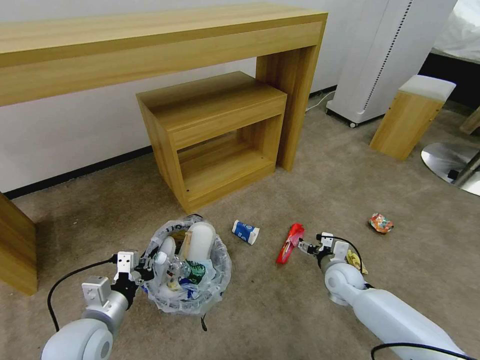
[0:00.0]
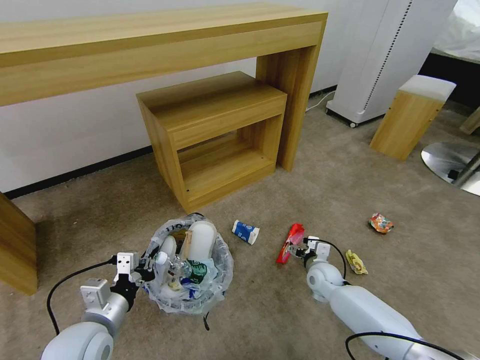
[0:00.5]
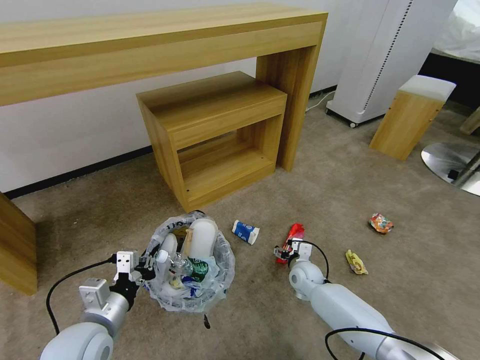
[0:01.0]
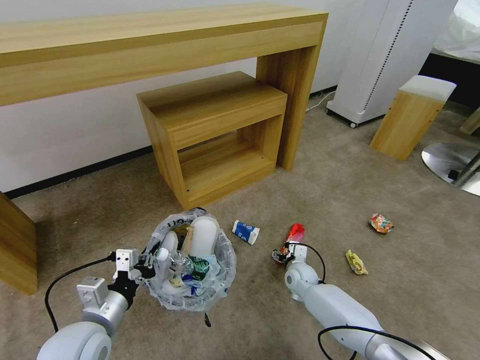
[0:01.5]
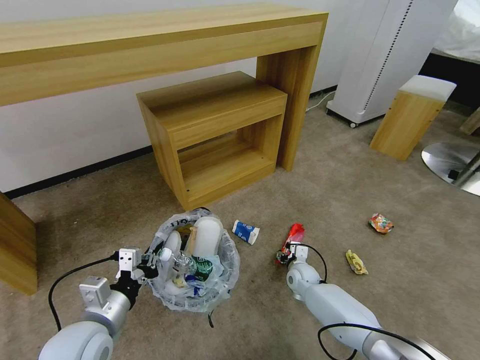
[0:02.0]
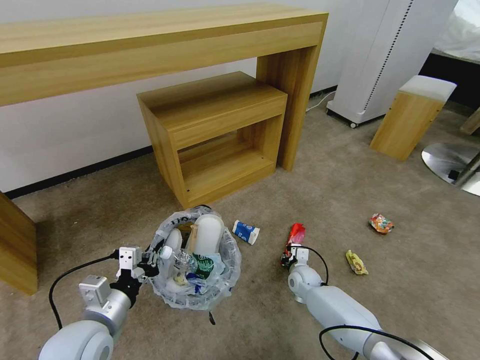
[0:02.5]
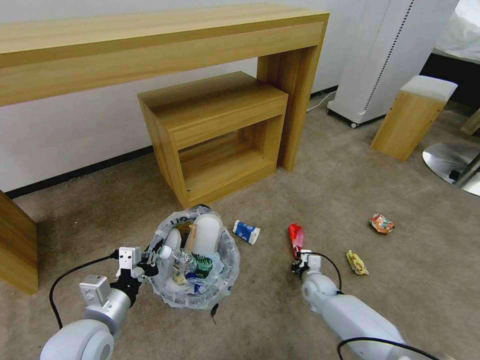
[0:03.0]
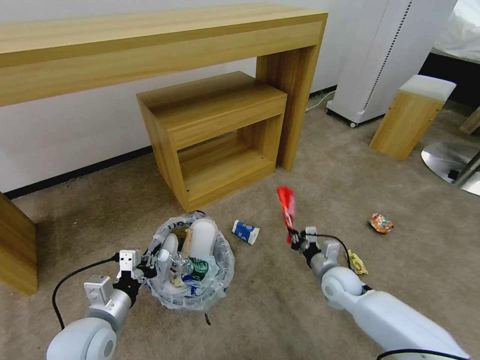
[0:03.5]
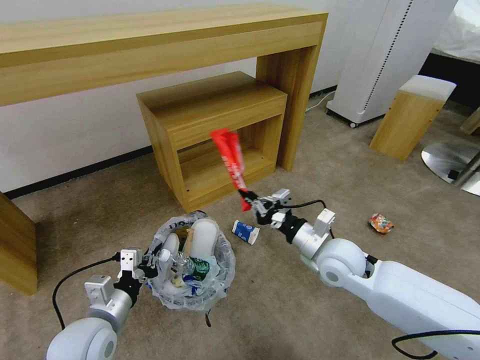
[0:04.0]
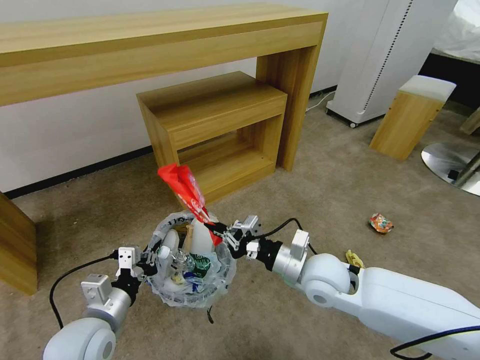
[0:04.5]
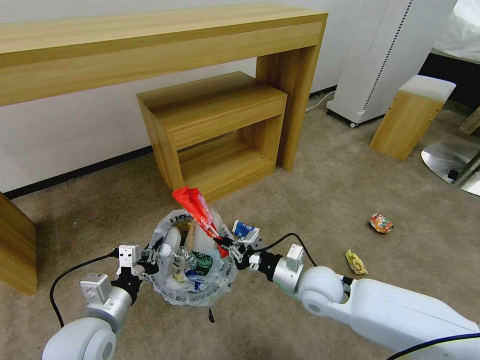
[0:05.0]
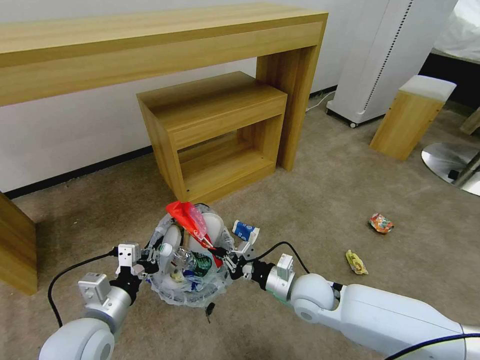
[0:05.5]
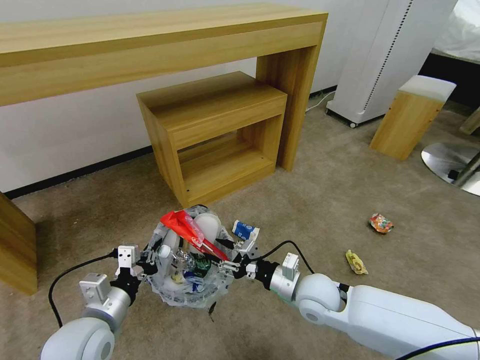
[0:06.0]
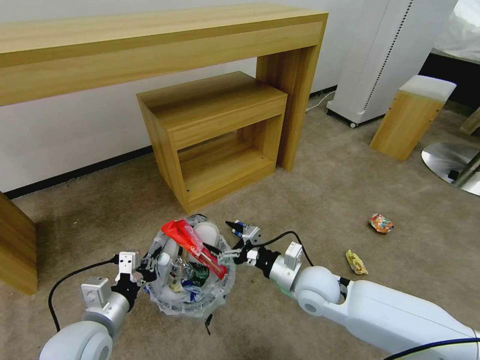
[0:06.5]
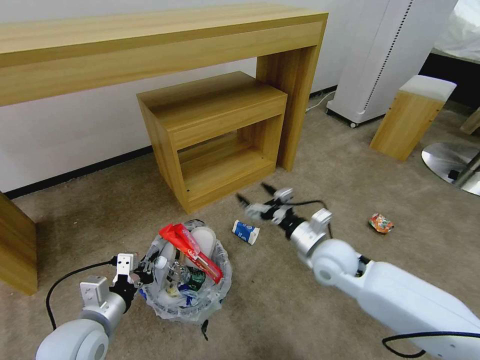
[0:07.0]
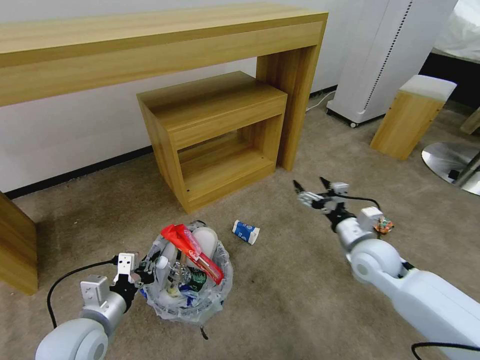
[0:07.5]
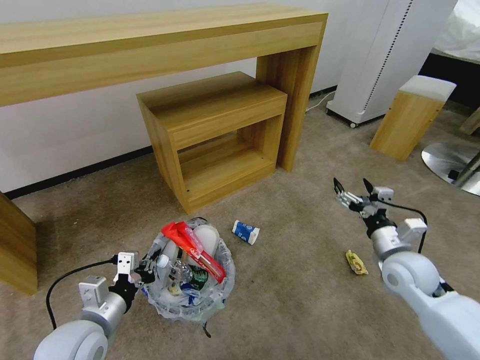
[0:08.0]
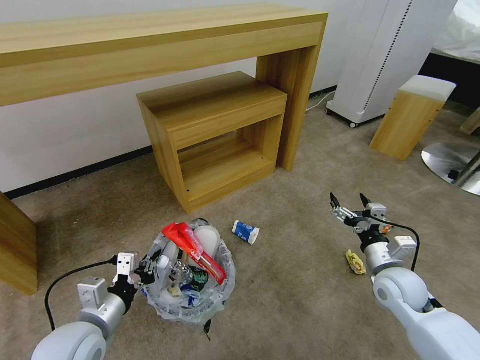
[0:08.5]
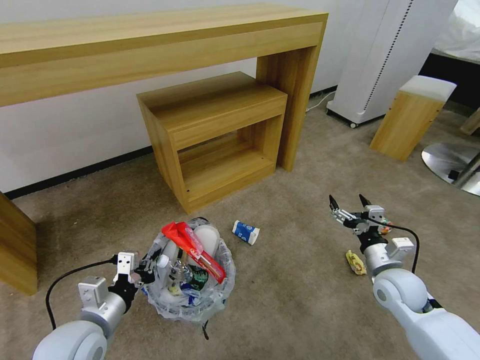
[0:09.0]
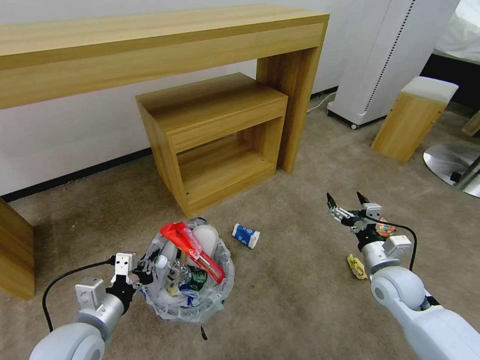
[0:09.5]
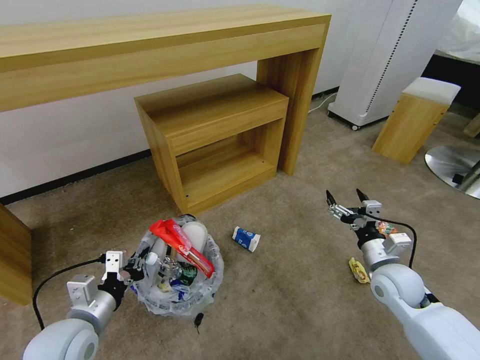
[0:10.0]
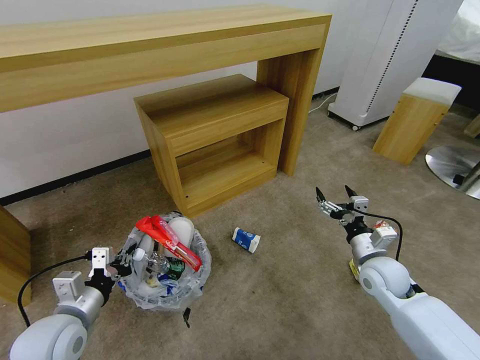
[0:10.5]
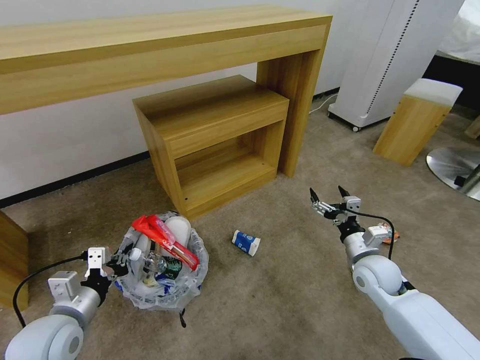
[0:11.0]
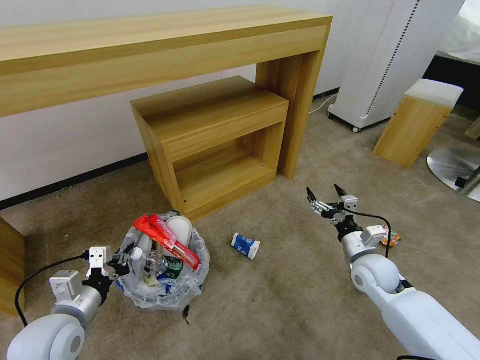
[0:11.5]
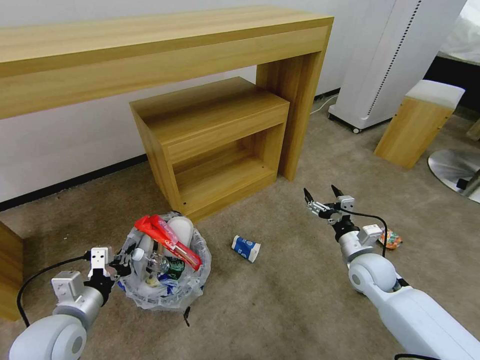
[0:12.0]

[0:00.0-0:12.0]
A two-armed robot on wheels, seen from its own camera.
Task of the whole recording: Pick up the trash bin and place the garbage on the floor into it.
0:00.0 to 0:02.0: The right gripper moves downward and to the left, approximately 10 cm.
0:02.0 to 0:04.0: The right gripper heads upward, covering about 25 cm, and closes up.
0:04.0 to 0:06.0: The right gripper shifts some 10 cm downward, and opens.
0:06.0 to 0:08.0: The right gripper goes about 20 cm to the right, and opens up.
0:08.0 to 0:10.0: The grippers stay close to where they were, moving slightly.
0:10.0 to 0:12.0: The right gripper moves approximately 5 cm.

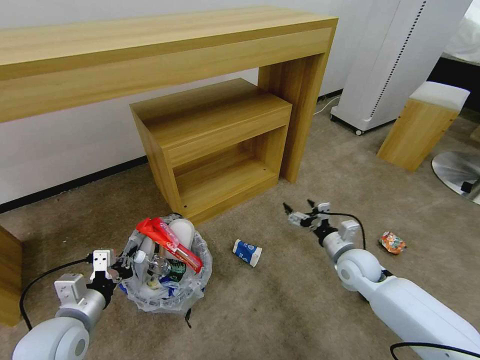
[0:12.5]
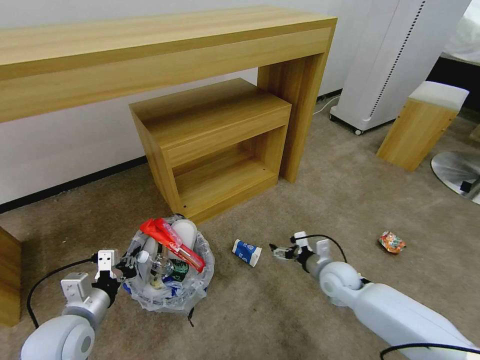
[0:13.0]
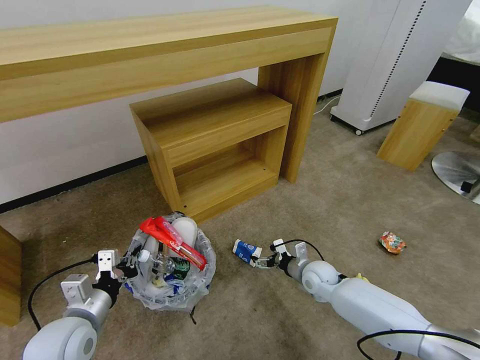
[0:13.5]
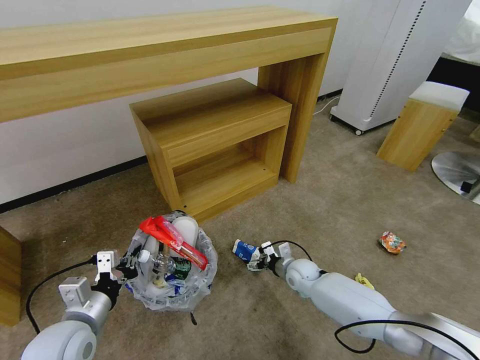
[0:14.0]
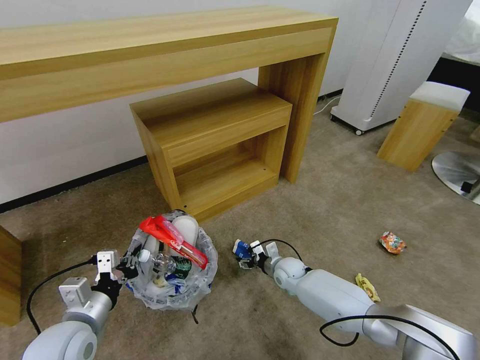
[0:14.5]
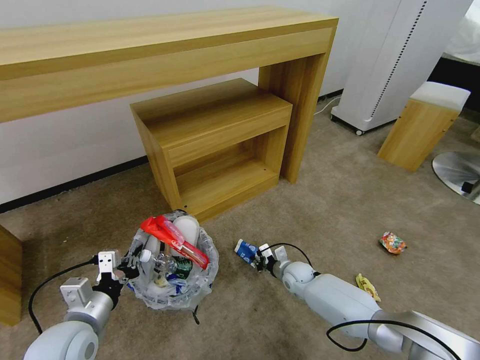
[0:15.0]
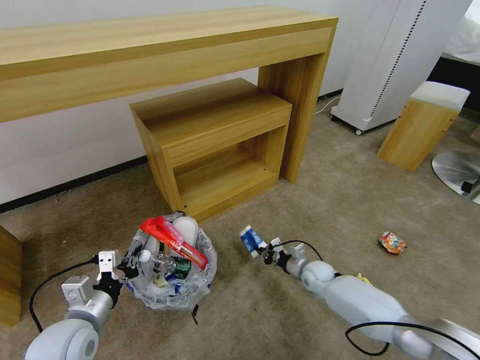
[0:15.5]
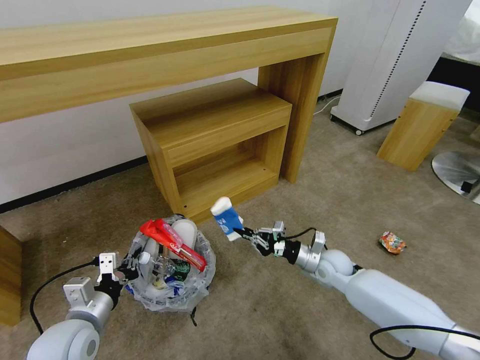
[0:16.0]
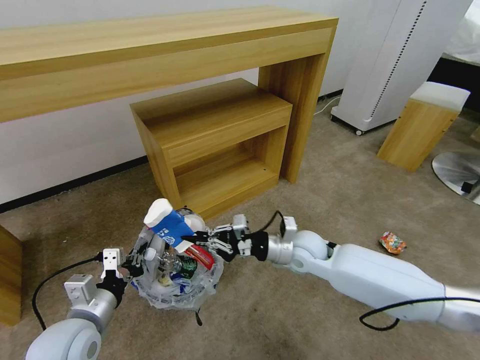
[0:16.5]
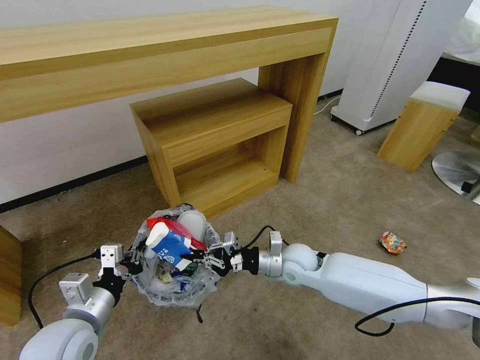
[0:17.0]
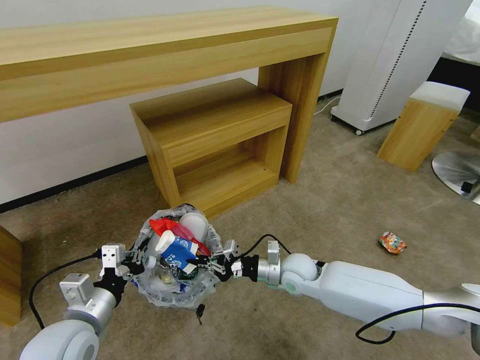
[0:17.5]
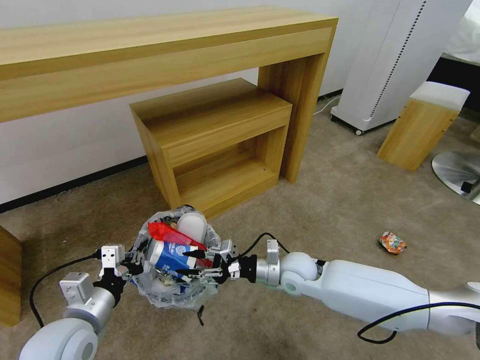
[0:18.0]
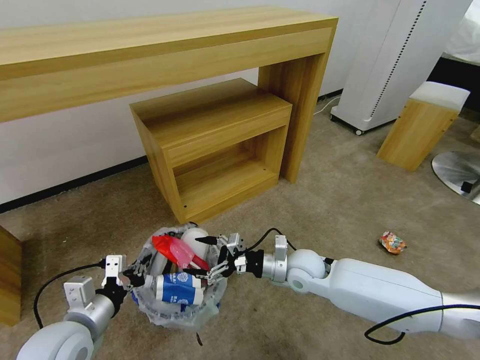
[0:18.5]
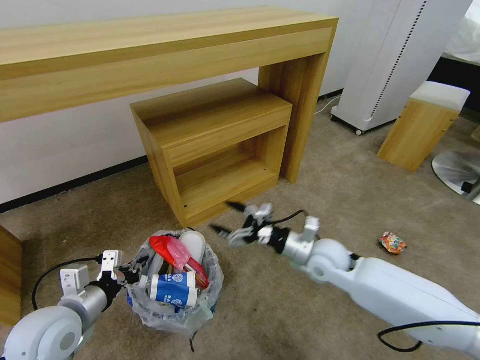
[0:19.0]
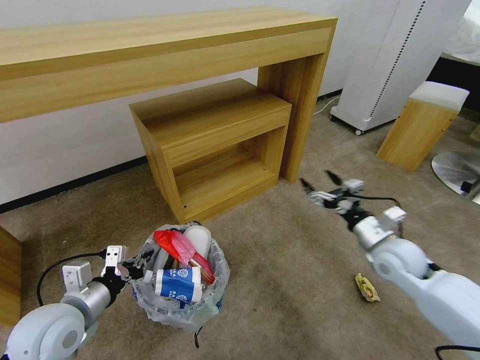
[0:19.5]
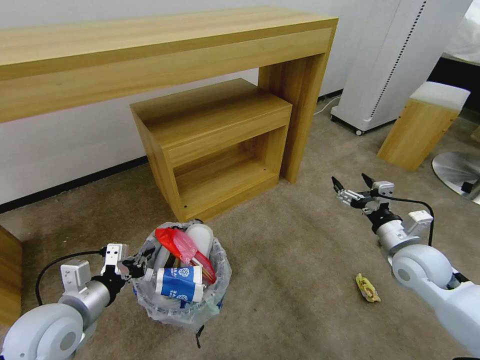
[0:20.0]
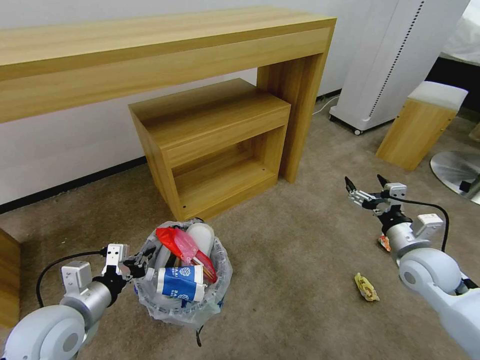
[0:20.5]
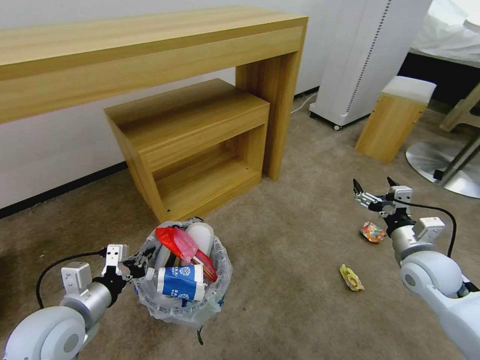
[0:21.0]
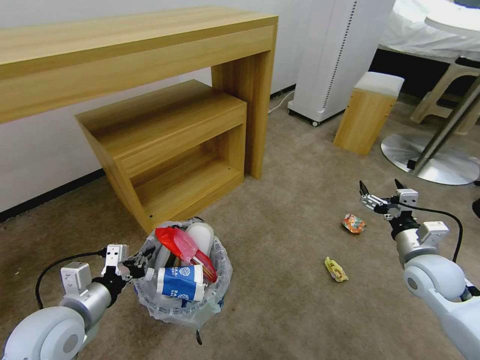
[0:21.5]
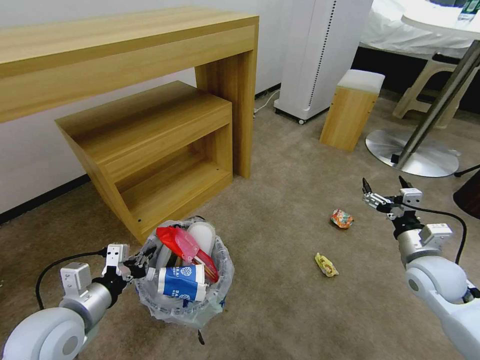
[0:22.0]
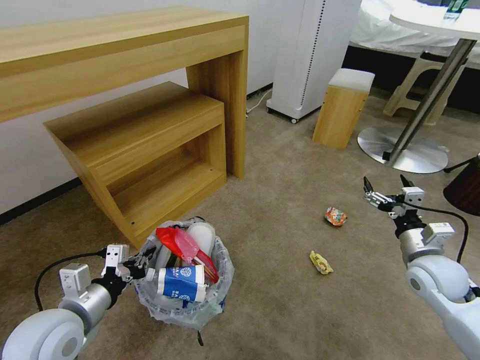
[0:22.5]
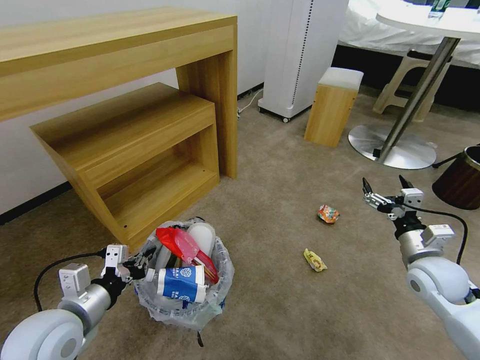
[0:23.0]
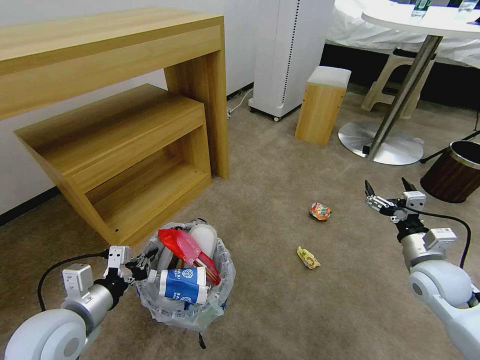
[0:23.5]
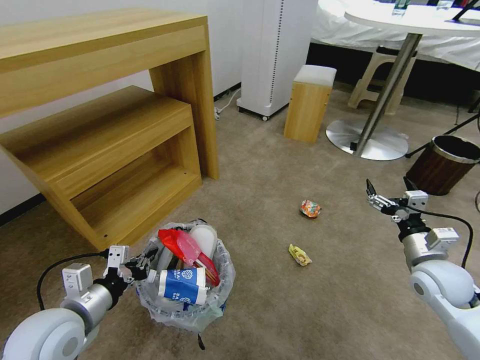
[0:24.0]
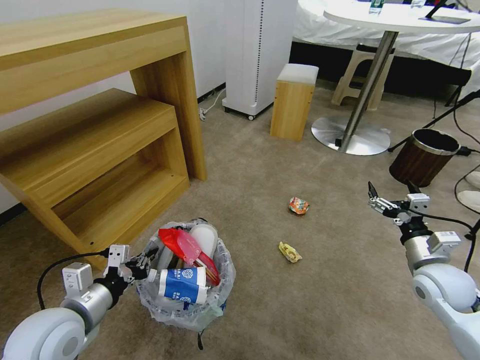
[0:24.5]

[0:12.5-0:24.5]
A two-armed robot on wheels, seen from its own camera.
Task of the whole recording: Pick up the trash bin and place the garbage on the floor into it.
0:12.5 to 0:14.5: The right gripper moves to the left and downward, some 20 cm.
0:14.5 to 0:16.5: The right gripper is displaced upward by some 20 cm, and closes up.
0:16.5 to 0:18.5: The right gripper opens.
0:18.5 to 0:20.5: The right gripper goes some 25 cm to the right.

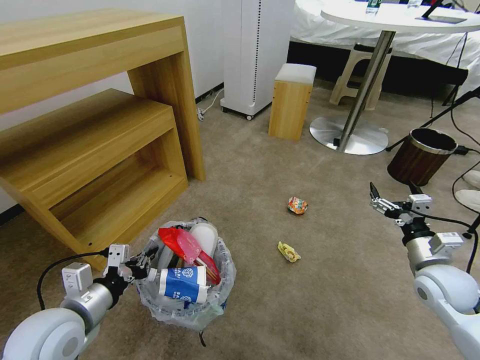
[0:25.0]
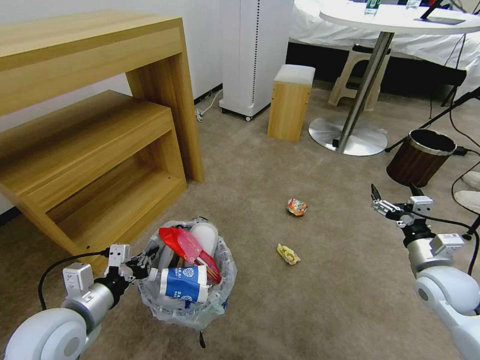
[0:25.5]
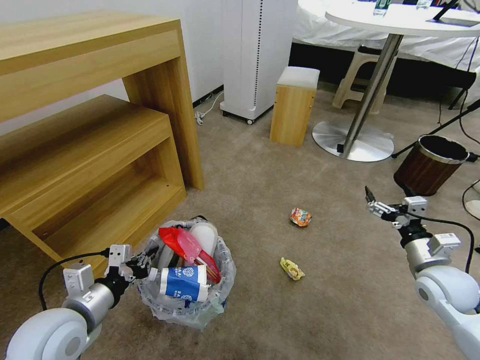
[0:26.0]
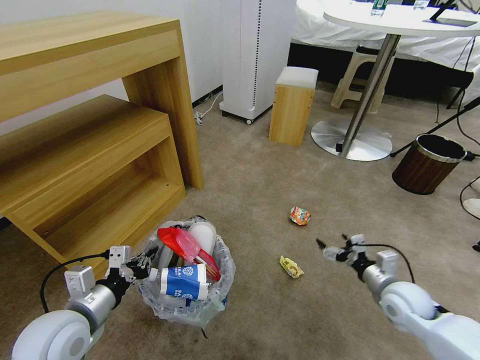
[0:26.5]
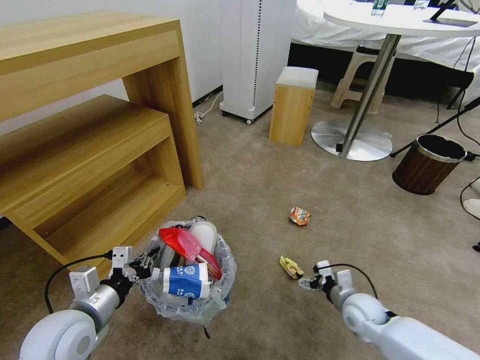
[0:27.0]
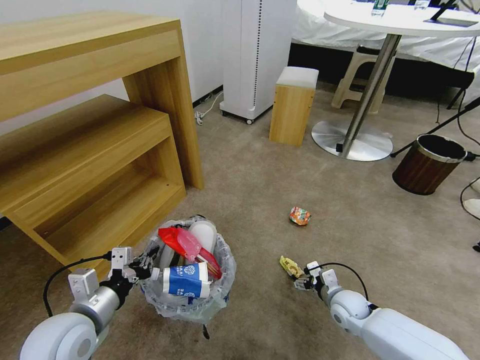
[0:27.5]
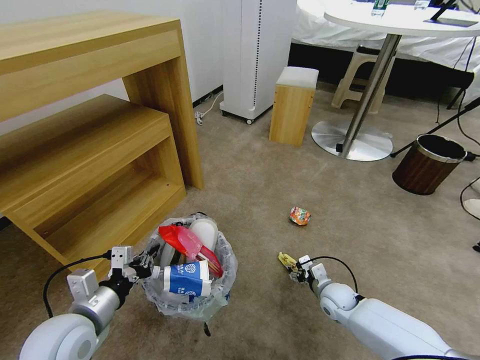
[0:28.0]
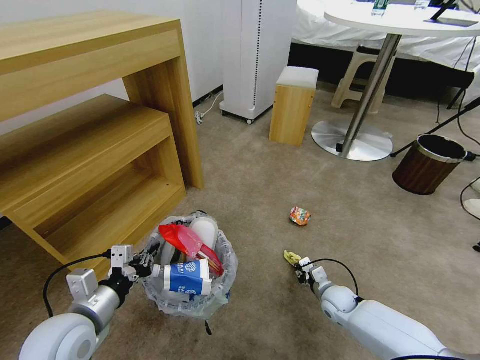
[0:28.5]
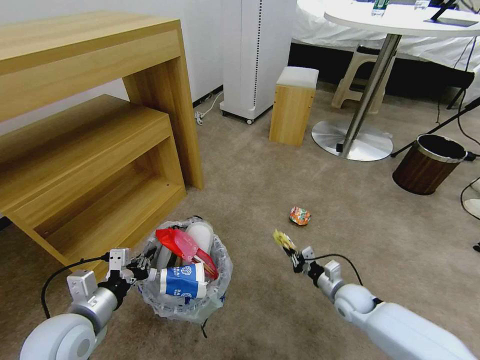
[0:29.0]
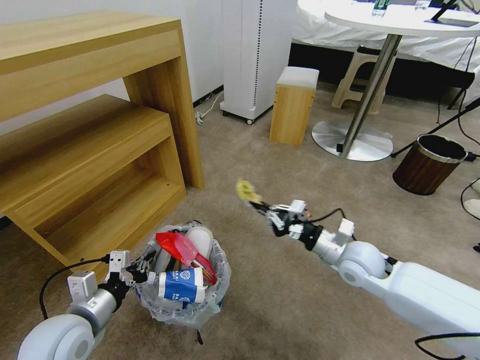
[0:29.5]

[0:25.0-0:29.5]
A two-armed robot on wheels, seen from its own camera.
Task of the whole recording: Pick up the trash bin and place the garbage on the floor into it.
0:25.0 to 0:27.0: The right gripper is displaced downward and to the left by approximately 20 cm.
0:27.0 to 0:29.5: The right gripper heads upward, covering roughly 15 cm, and closes its fingers.
